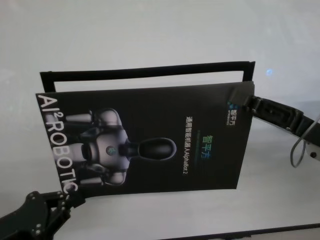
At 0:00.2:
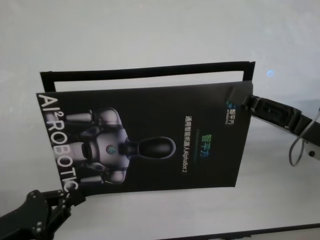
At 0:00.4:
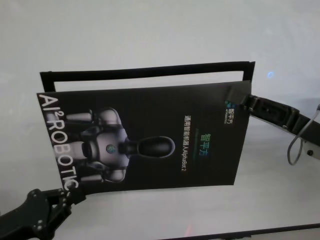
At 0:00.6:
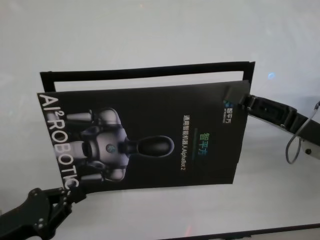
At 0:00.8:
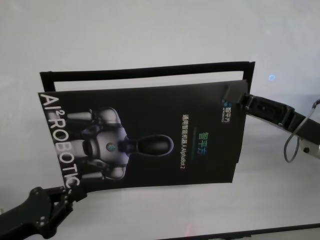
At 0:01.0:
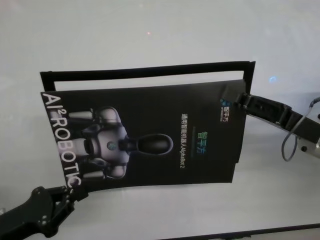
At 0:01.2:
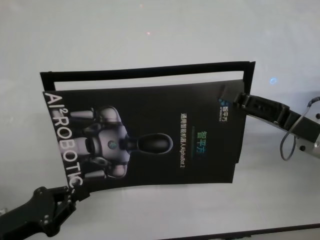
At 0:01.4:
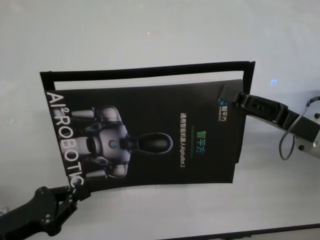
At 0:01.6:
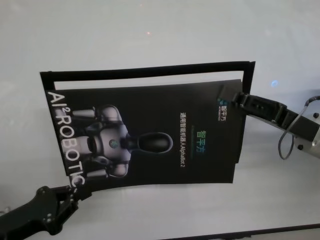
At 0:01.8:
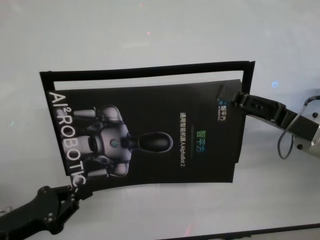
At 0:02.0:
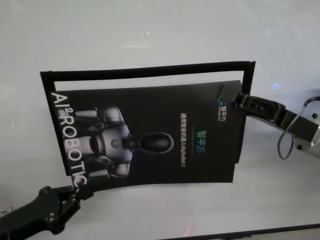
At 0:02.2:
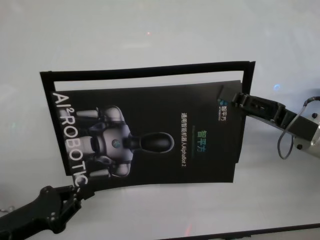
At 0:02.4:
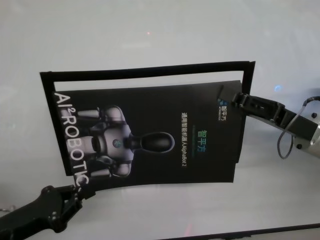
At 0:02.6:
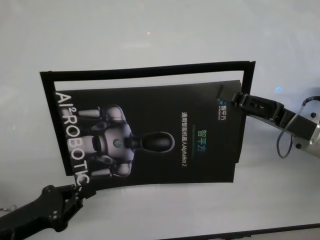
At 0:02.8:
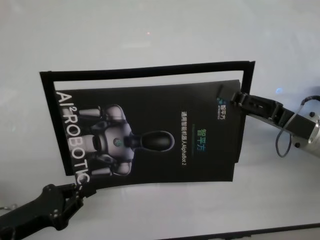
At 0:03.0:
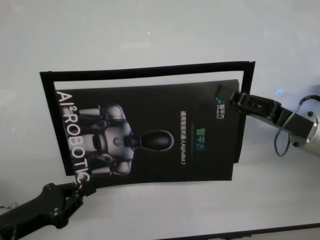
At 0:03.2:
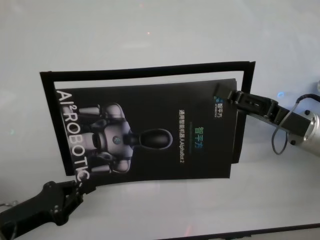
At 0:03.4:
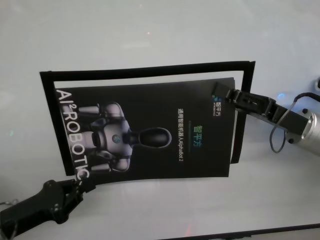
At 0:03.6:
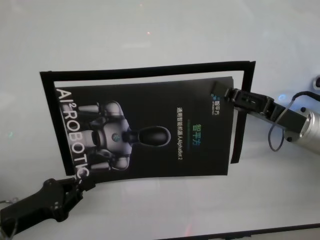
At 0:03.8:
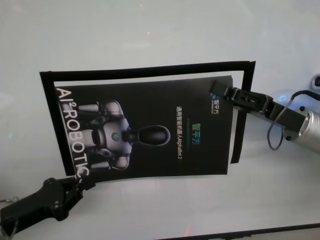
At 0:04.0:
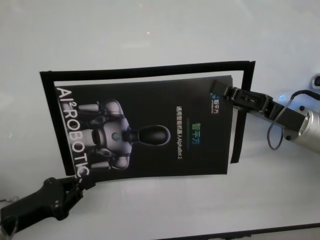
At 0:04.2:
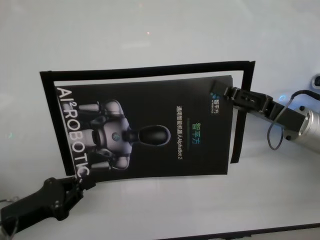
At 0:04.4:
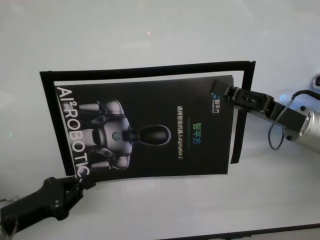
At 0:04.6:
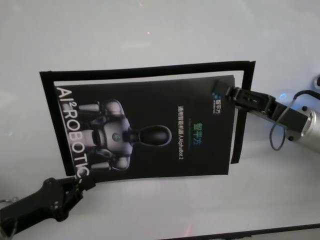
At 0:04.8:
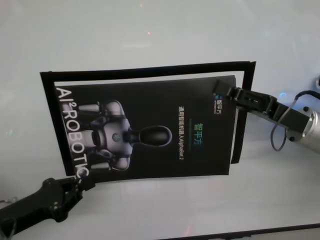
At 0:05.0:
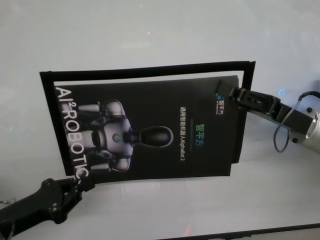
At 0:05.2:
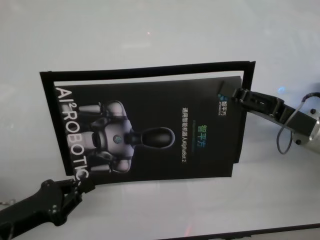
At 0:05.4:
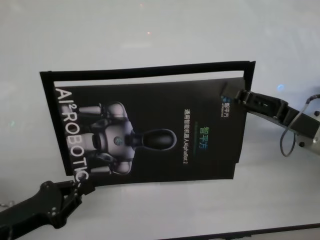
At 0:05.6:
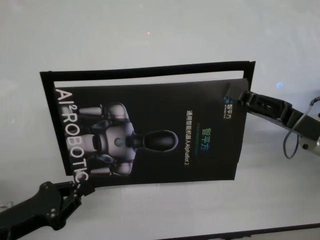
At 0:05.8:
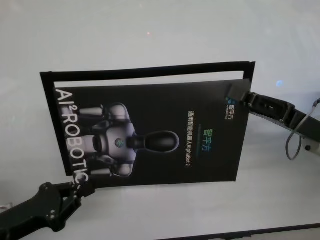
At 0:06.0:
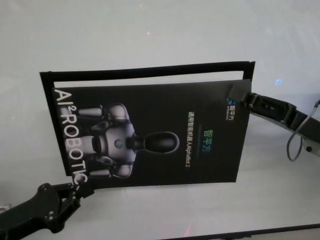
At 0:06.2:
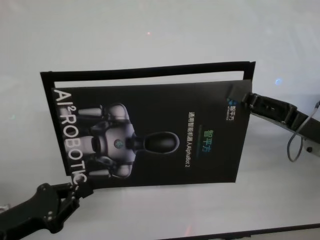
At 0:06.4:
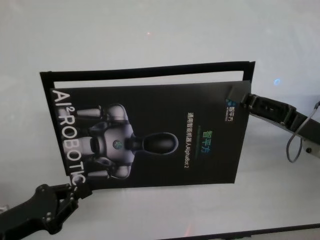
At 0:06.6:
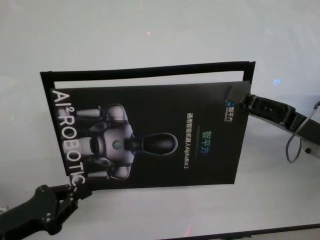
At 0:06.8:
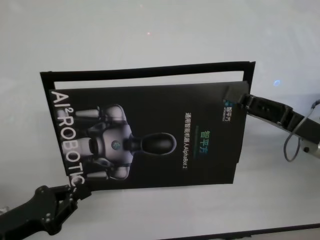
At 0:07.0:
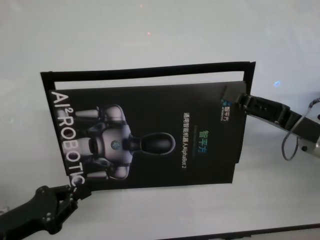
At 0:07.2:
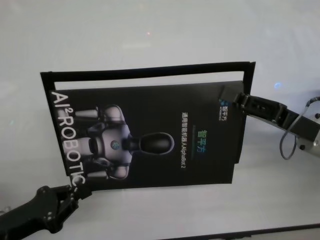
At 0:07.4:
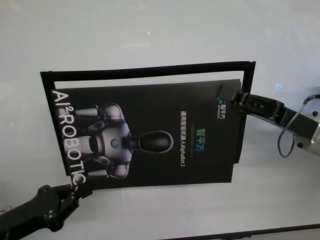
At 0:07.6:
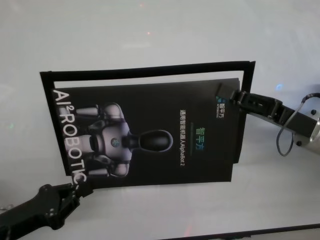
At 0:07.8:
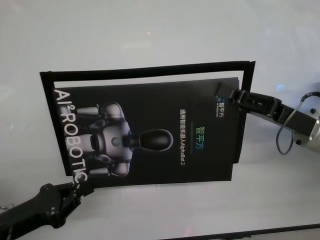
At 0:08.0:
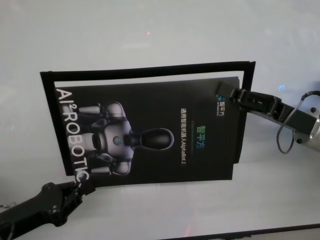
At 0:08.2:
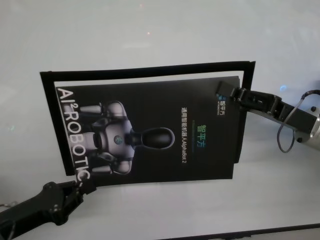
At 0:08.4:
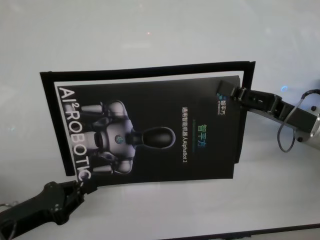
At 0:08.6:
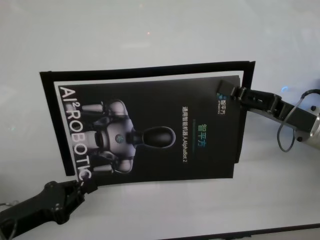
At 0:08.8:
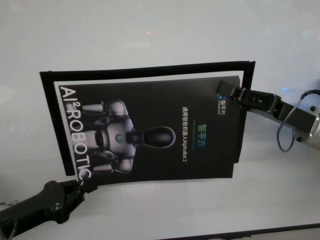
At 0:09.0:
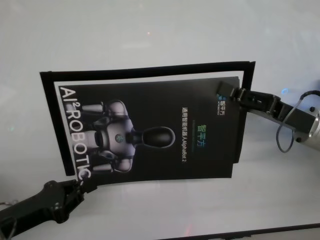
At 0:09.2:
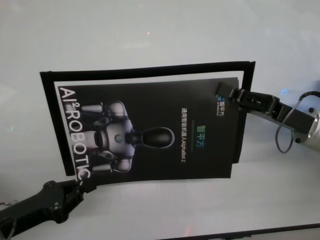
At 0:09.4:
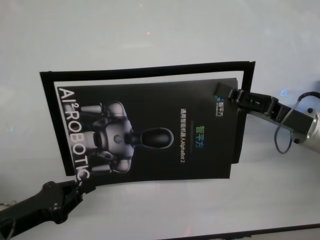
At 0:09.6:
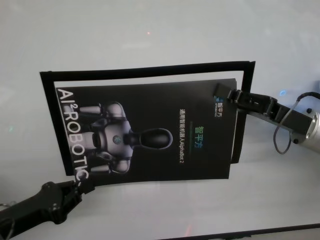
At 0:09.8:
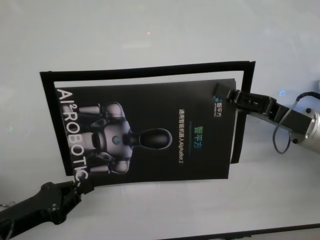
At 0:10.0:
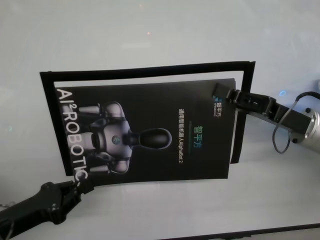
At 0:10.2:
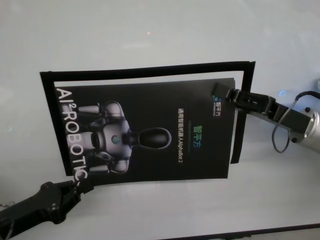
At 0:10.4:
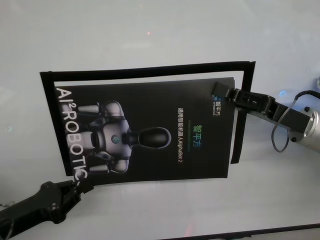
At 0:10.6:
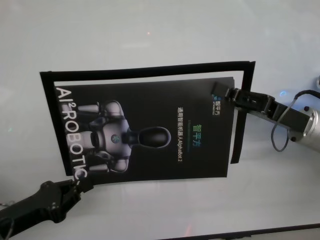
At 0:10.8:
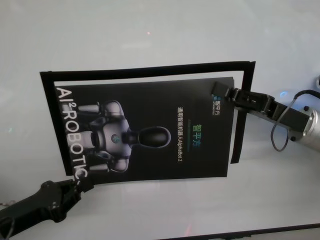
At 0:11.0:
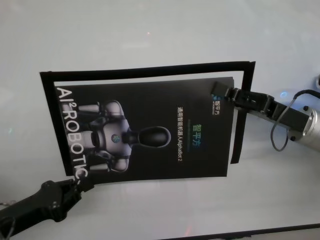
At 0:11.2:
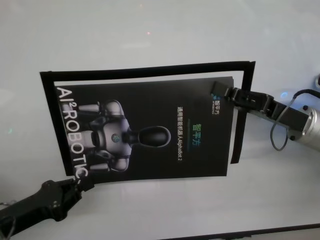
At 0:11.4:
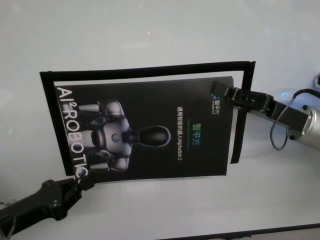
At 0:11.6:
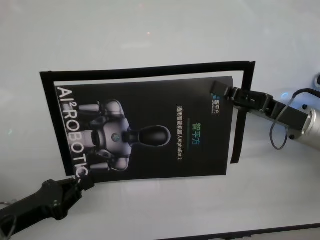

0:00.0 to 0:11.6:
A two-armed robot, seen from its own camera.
Task of the whole recording: stick the poster on the table by hand.
Step, 0:00.0 to 0:09.2: Stick the advertisement in the top-right corner area with both grippers.
